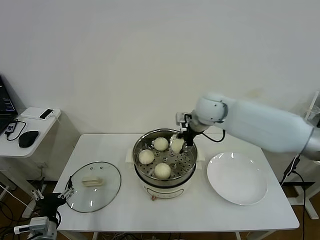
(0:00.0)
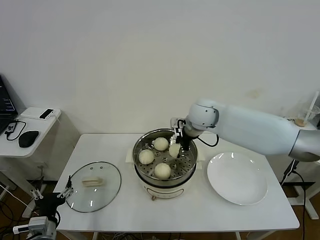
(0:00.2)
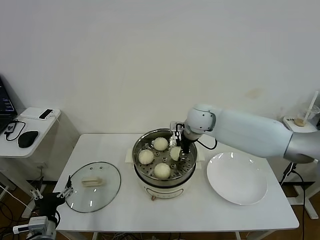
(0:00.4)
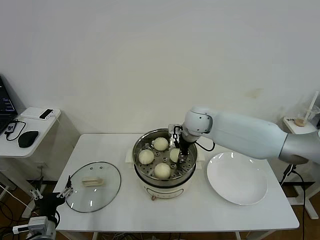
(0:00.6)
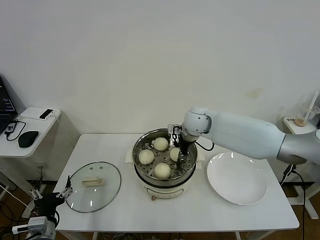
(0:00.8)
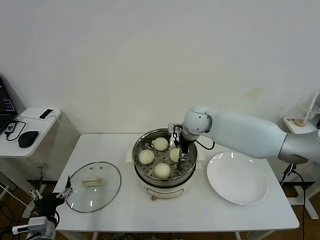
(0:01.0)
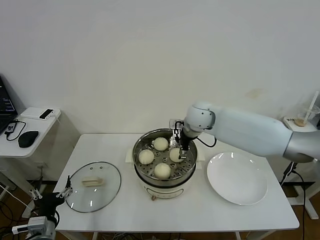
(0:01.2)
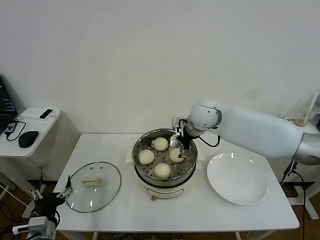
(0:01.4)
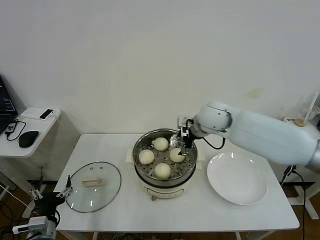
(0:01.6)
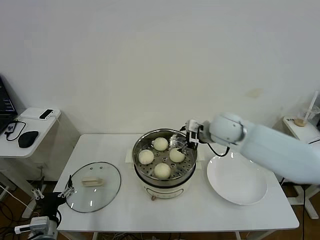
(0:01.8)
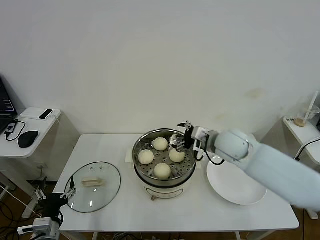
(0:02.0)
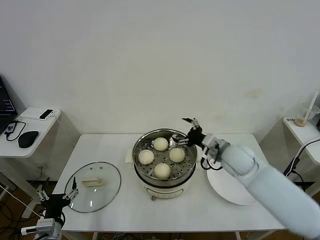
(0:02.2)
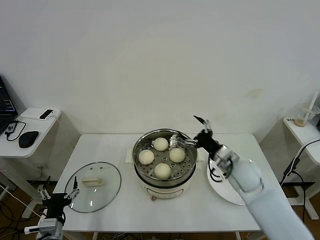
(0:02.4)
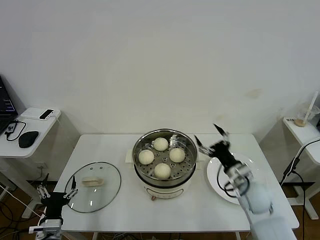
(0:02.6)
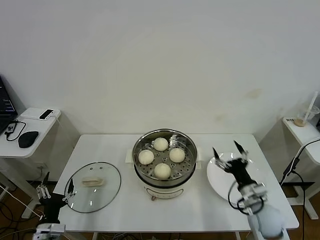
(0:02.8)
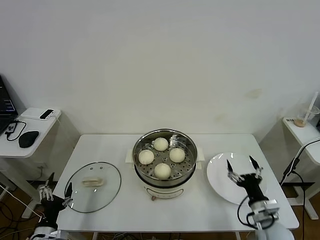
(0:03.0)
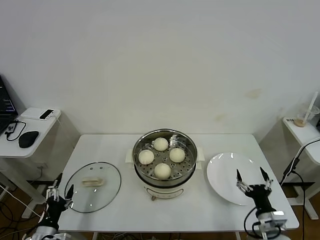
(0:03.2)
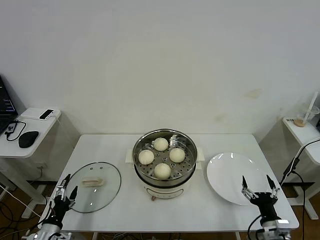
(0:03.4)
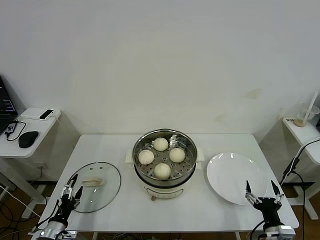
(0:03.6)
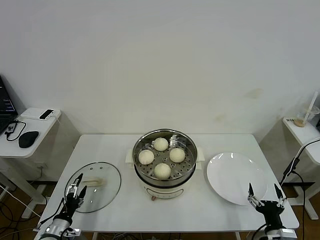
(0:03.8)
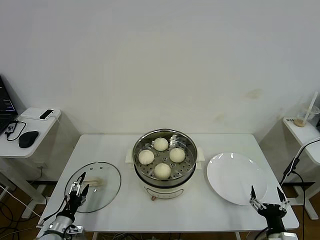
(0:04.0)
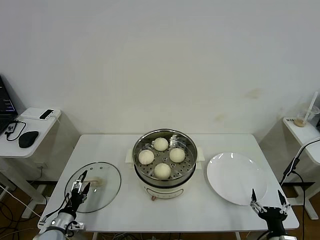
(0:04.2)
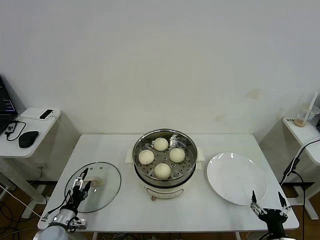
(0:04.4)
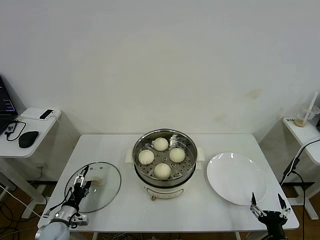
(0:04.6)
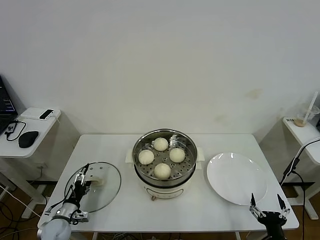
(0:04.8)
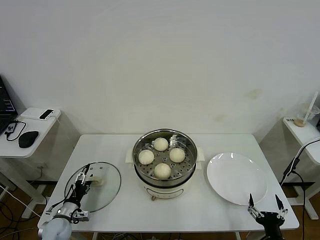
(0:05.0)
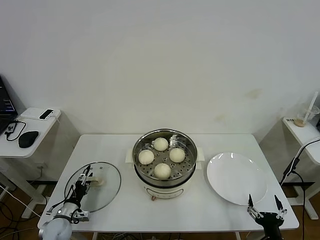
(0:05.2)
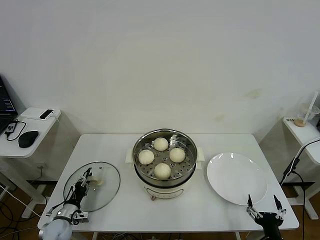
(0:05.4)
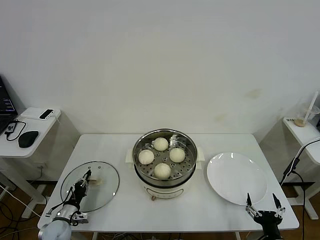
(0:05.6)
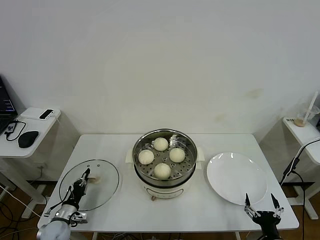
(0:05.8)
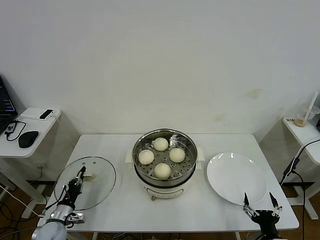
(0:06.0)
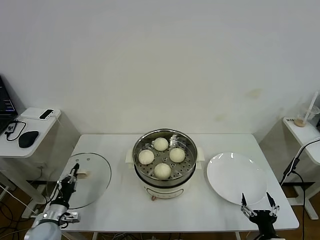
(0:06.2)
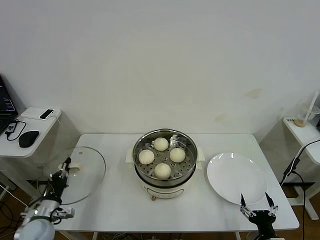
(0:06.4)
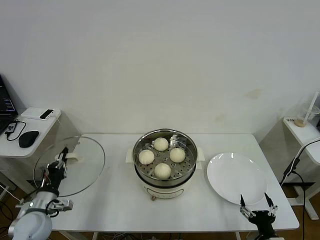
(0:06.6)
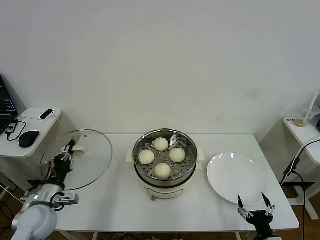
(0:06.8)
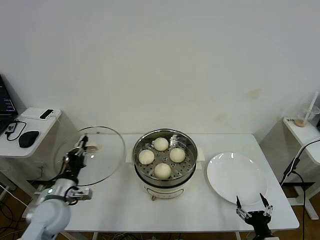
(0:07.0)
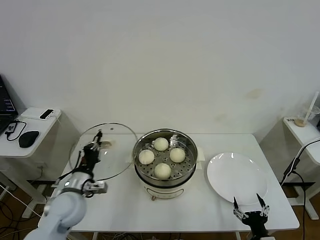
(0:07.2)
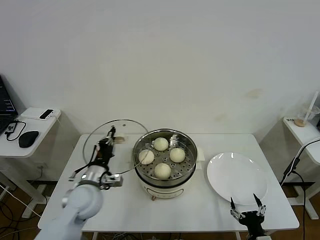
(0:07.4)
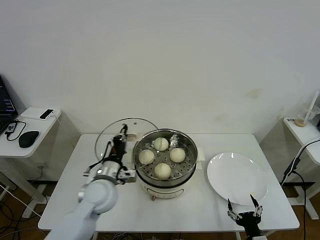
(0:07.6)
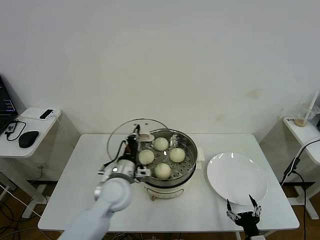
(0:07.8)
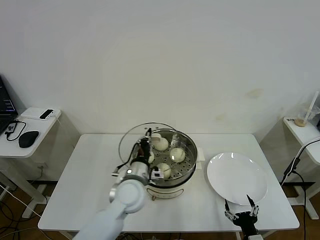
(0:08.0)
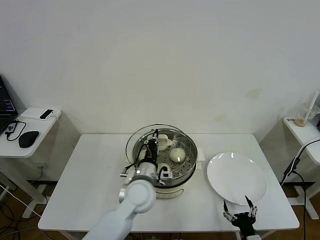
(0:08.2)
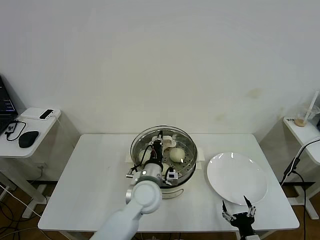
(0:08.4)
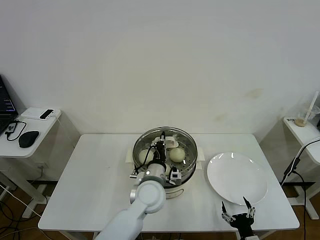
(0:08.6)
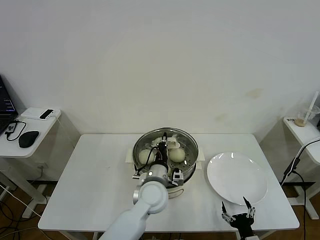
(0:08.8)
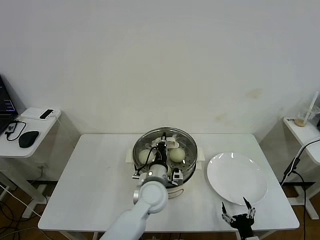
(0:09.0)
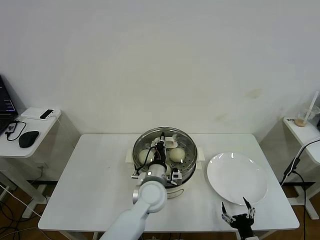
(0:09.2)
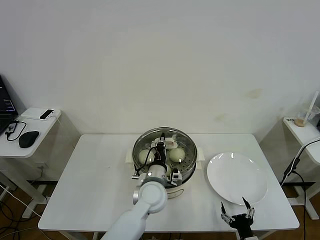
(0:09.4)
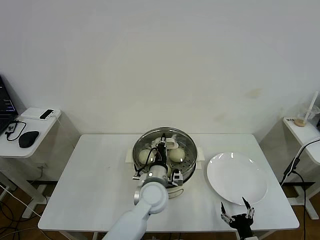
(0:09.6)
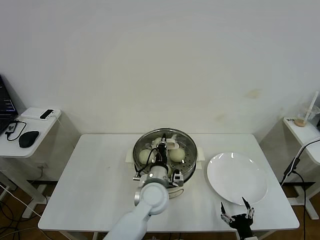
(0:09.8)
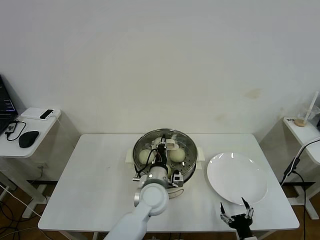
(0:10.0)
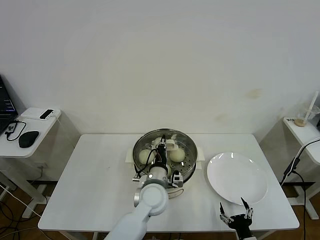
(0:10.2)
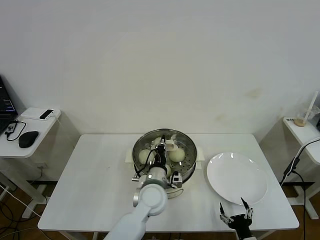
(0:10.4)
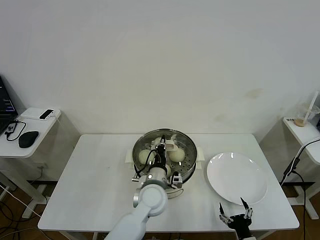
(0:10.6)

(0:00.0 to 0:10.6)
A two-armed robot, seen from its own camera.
Task of the whole recording: take steamed baozi put them in steamer then cover it.
Step, 0:01.6 - 0:05.8: Grasp the pot lid with left gripper.
0:00.0 - 0:01.6: The right gripper opens its fingers.
0:01.6 - 0:03.0: The right gripper is displaced backward, downward and to the right by approximately 40 cm. The left gripper travels downward by approximately 5 cm.
0:03.0 - 0:04.6: The right gripper moves backward, about 10 cm. The left gripper travels forward and downward by approximately 10 cm.
0:04.6 - 0:06.0: The left gripper closes its fingers.
0:06.0 - 0:07.6: The left gripper heads to the right and upward, covering some 30 cm.
0:07.6 - 0:09.0: The left gripper moves to the right, approximately 15 cm.
0:09.0 - 0:10.6: Both grippers stay about where they are.

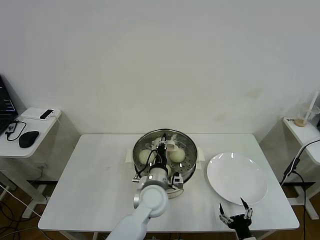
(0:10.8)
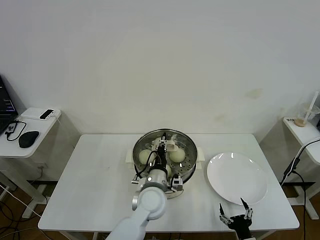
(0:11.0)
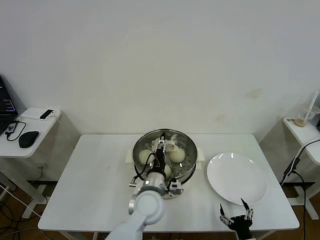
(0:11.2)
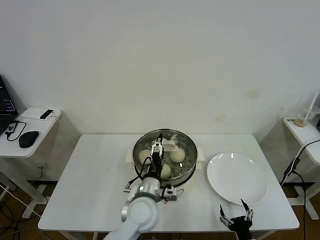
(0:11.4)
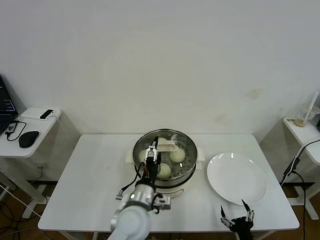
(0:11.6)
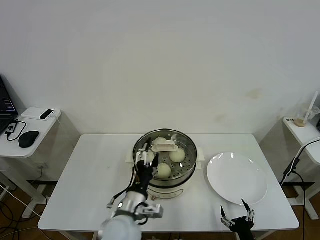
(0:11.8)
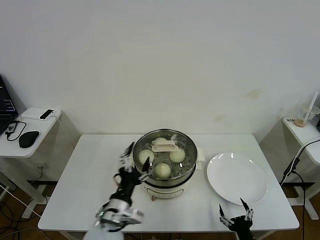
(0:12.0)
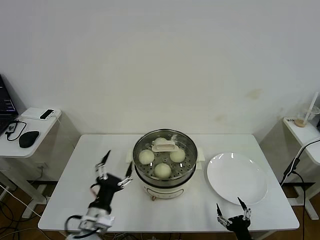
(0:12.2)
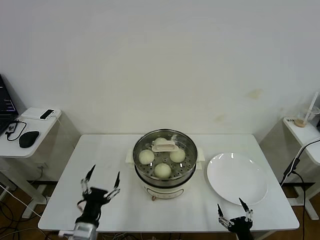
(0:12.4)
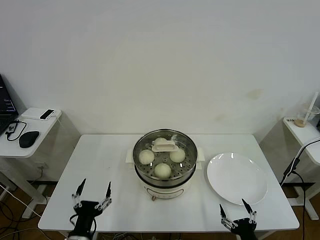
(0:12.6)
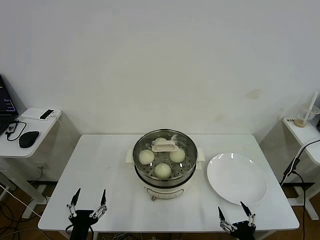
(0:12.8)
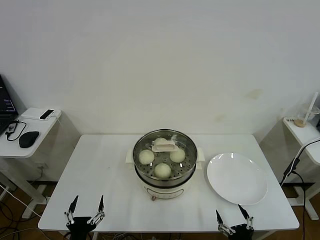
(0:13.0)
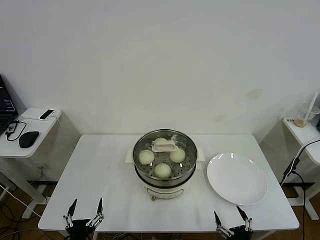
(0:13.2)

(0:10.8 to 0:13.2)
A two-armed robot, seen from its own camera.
Task of the whole recording: take steamed baozi put them in steamer then cover it.
0:10.8 - 0:12.0: The left gripper heads backward and to the left, covering about 15 cm, and opens.
0:12.0 - 0:13.2: The right gripper ends up approximately 5 cm from where it was; the left gripper shifts about 20 cm to the left, backward and downward.
